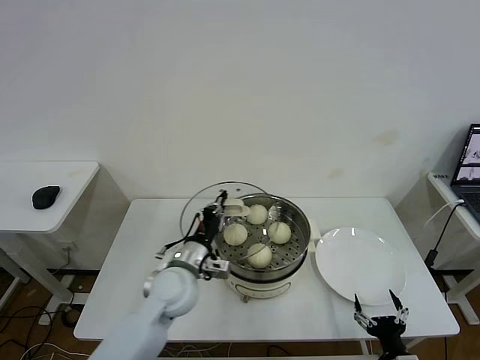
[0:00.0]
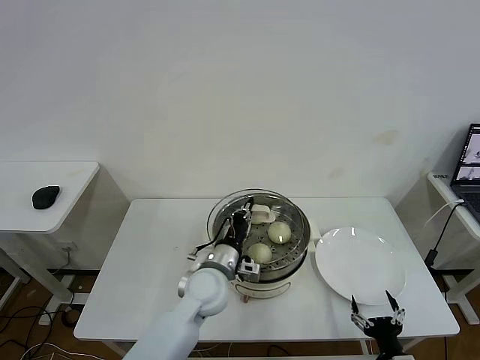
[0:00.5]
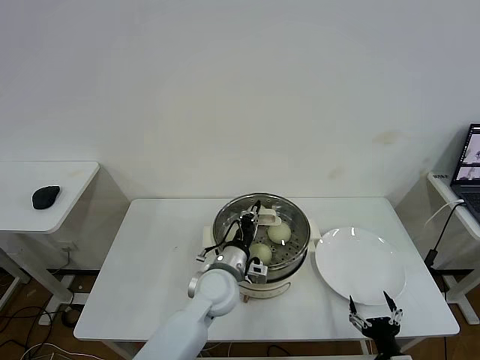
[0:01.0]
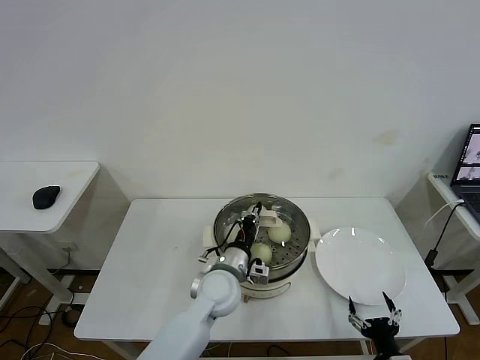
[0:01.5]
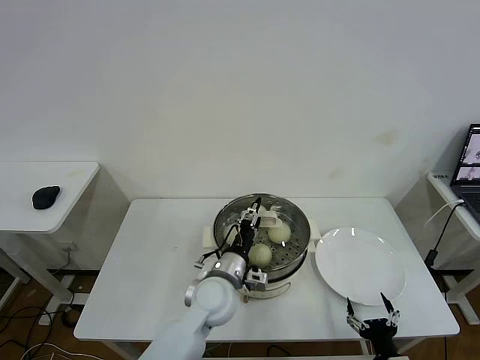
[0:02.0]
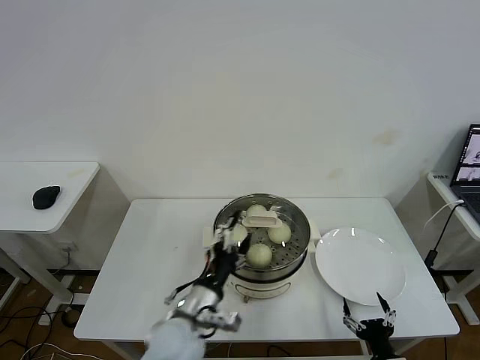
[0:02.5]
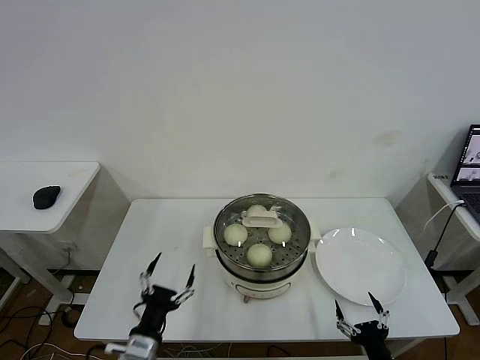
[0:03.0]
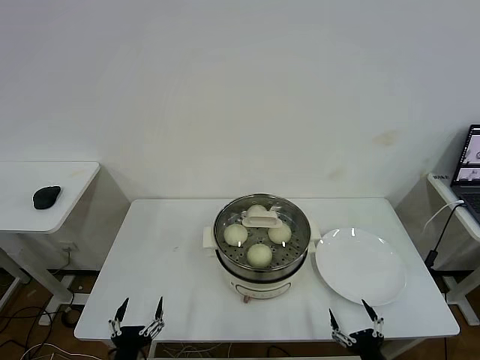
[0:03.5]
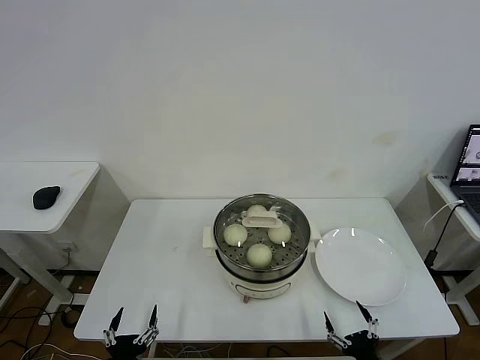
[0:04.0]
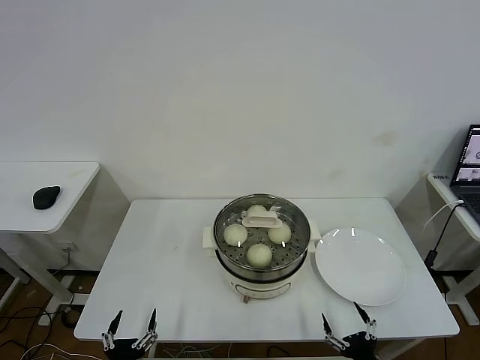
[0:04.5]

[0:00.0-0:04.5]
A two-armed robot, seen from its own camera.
Task of the whole recording: take steamed baozi put them in steamer then cover it.
Step, 0:00.0 to 0:02.0: Place the pot lid on the steamer with left gripper.
0:00.0 to 0:02.0: The left gripper moves to the right, about 10 cm, and opens its fingers.
0:02.0 to 0:04.5: The left gripper heads backward, to the left and downward, covering some 35 cm, and opens.

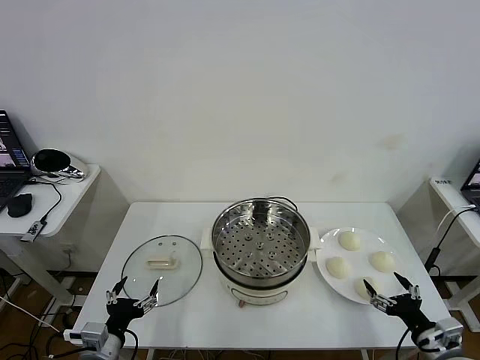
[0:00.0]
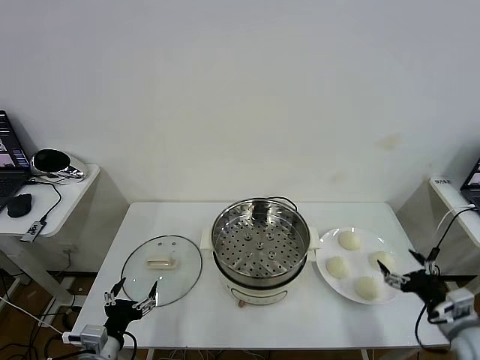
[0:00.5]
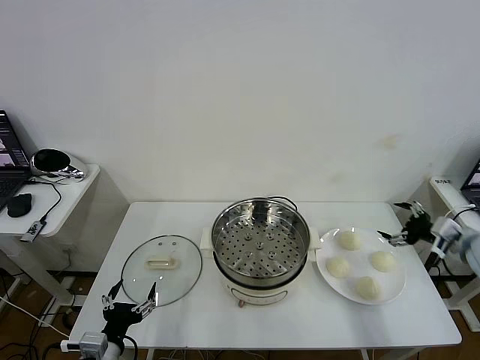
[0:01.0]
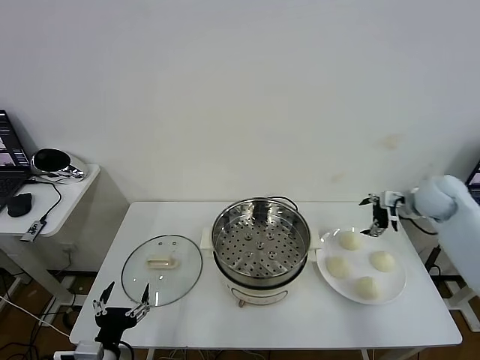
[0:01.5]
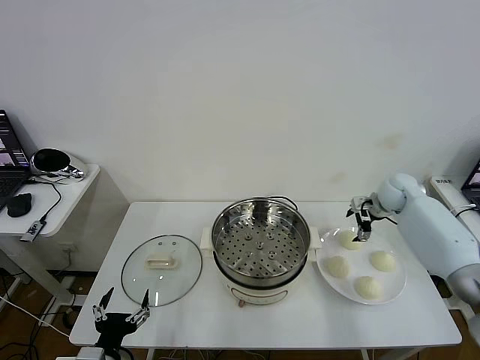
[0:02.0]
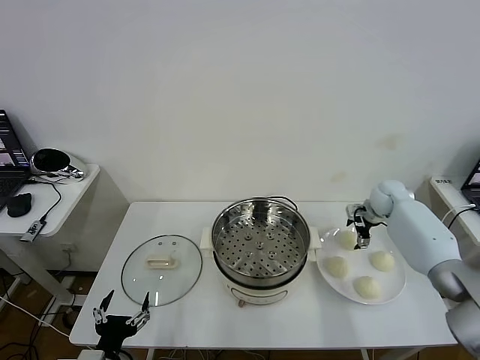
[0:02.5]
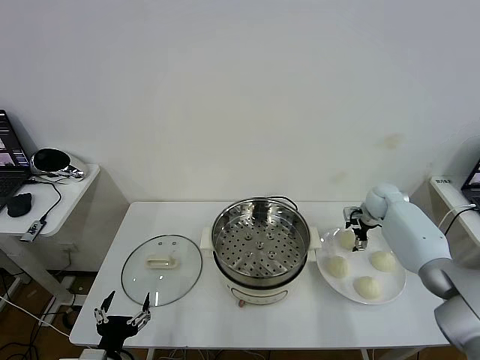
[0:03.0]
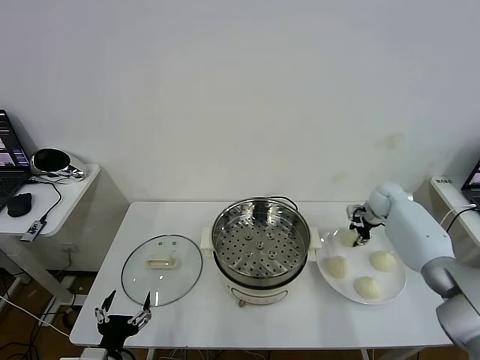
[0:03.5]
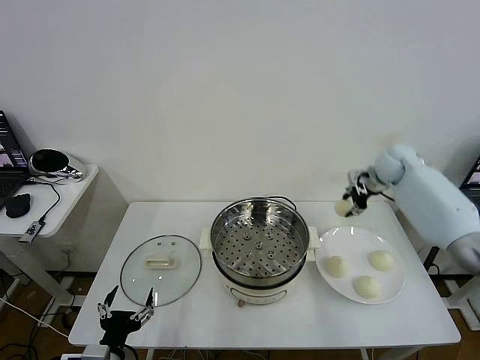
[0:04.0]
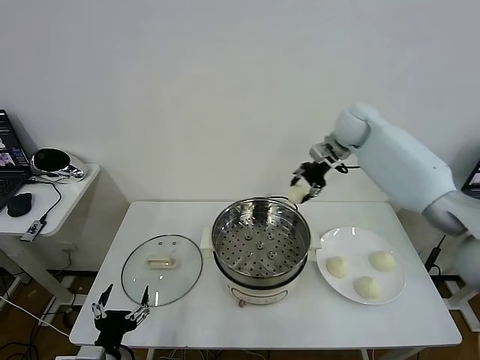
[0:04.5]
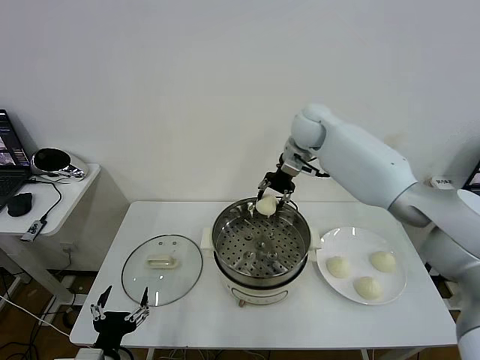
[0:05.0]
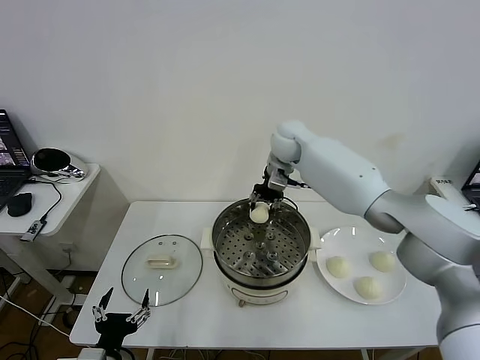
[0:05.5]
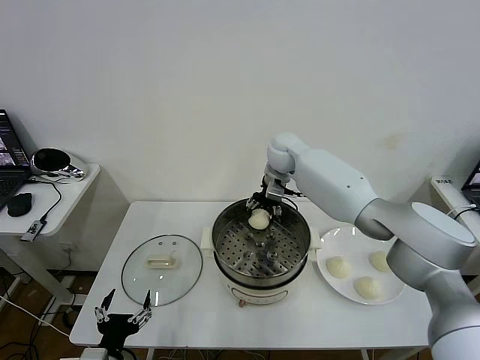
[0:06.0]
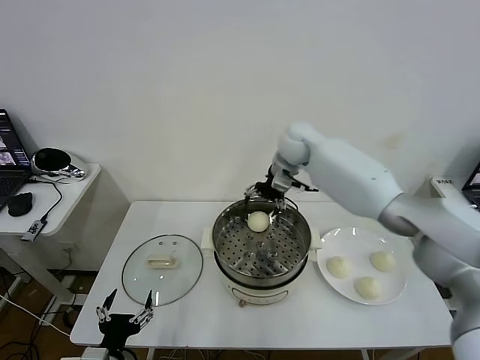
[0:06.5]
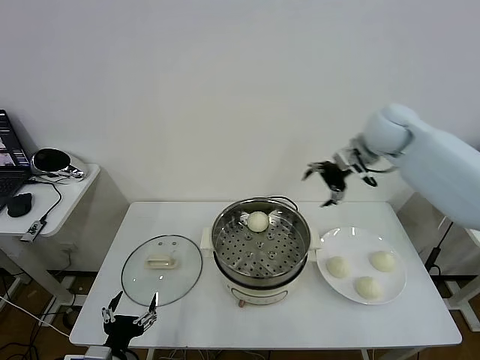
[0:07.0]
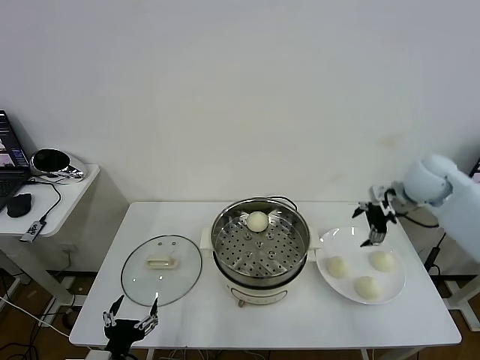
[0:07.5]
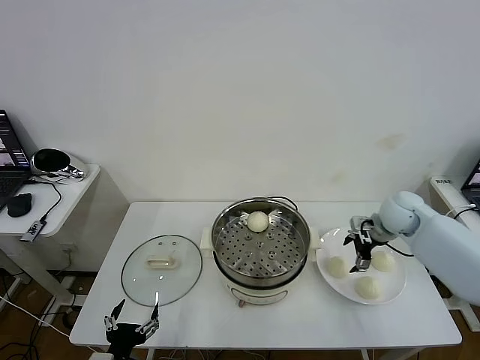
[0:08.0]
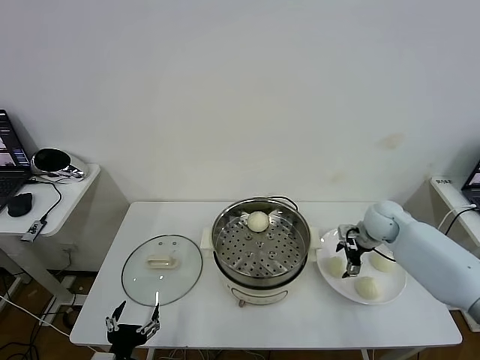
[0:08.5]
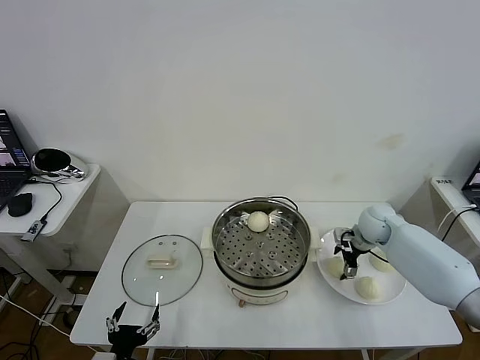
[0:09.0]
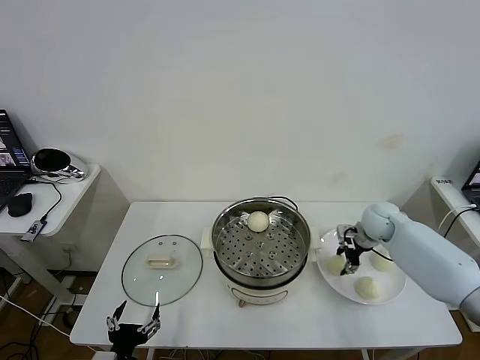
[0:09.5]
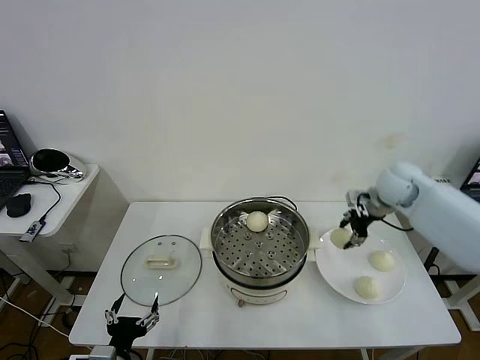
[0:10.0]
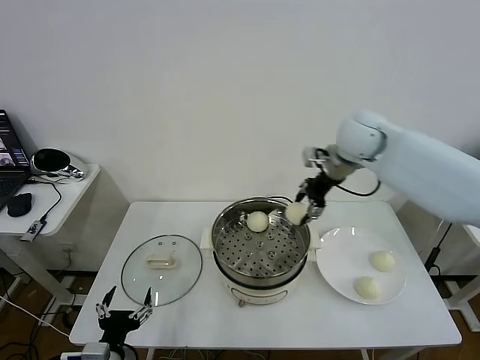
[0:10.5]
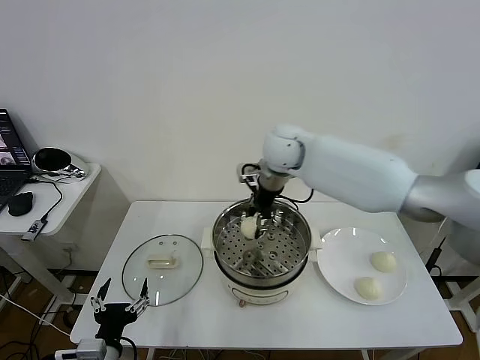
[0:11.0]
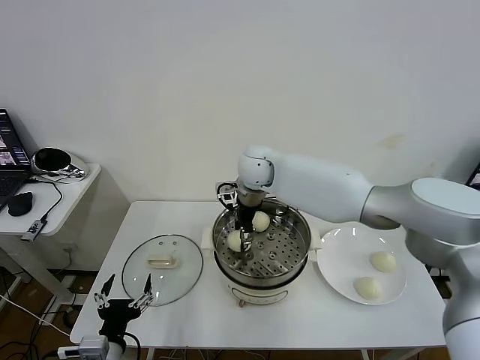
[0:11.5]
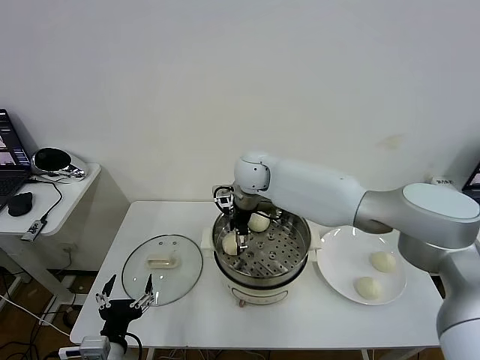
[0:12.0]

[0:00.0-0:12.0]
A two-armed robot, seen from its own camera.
Task of the whole recording: take steamed baozi put them in steamer then cover it.
Step, 0:00.0 to 0:03.0: Grasp the baozi in the plate with right gripper.
Step, 0:03.5 to 0:06.0: Place the baozi on the steamer with right gripper.
Step, 0:06.5 to 0:09.0: Grasp the baozi in the plate with right gripper.
Step, 0:09.5 to 0:12.0: Place the baozi on the steamer with right gripper.
0:02.0 to 0:04.0: The right gripper shifts about 15 cm upward, and closes its fingers.
0:04.0 to 0:06.0: The right gripper goes roughly 25 cm to the left, and opens its fingers.
0:06.0 to 0:08.0: The right gripper goes about 30 cm to the right and backward.
0:08.0 to 0:10.0: The right gripper is displaced upward by roughly 15 cm, and closes.
0:10.0 to 0:12.0: The right gripper is displaced to the left by some 30 cm, and opens up.

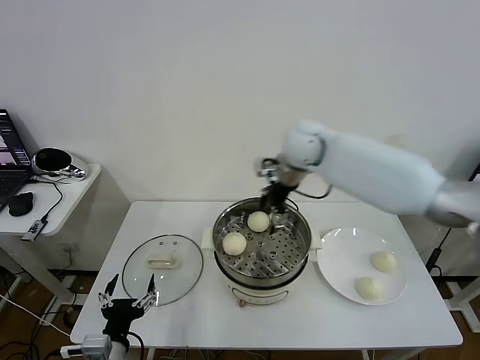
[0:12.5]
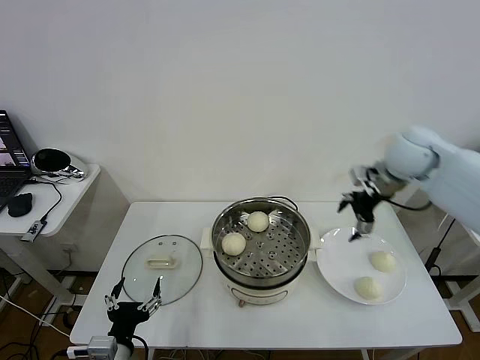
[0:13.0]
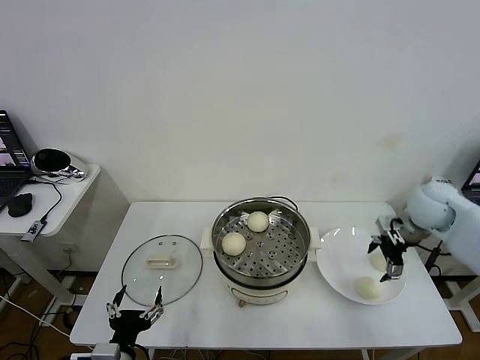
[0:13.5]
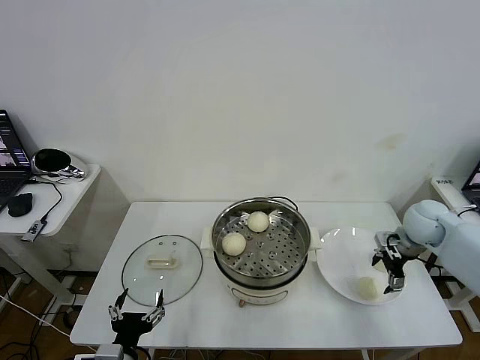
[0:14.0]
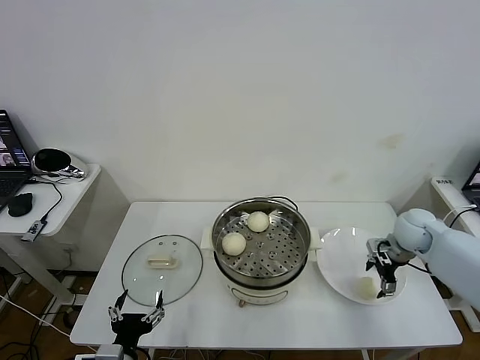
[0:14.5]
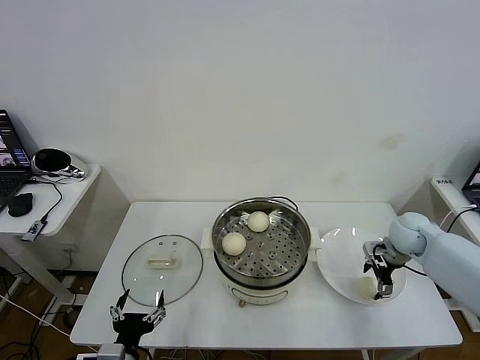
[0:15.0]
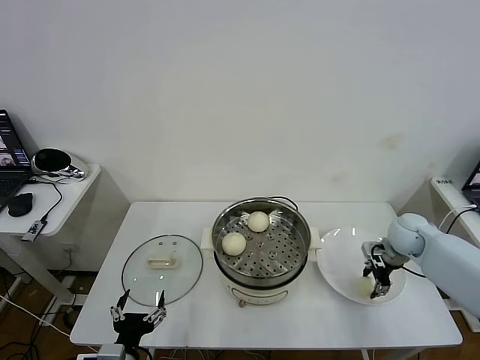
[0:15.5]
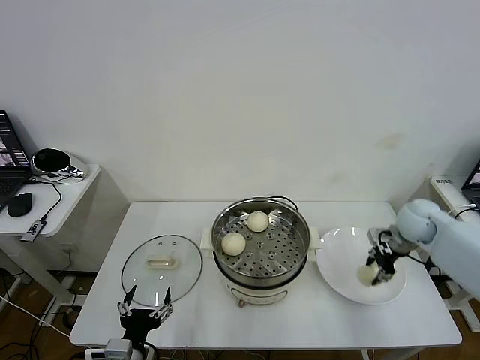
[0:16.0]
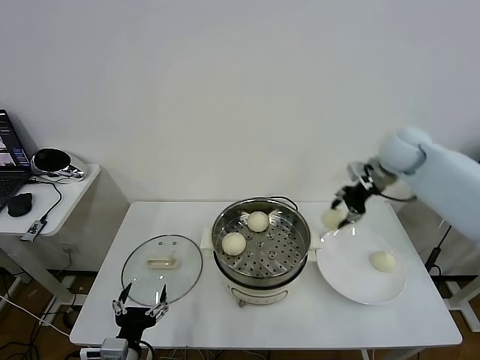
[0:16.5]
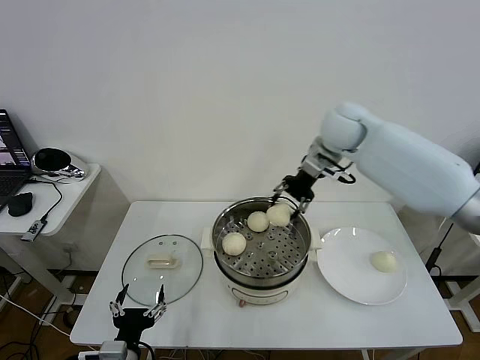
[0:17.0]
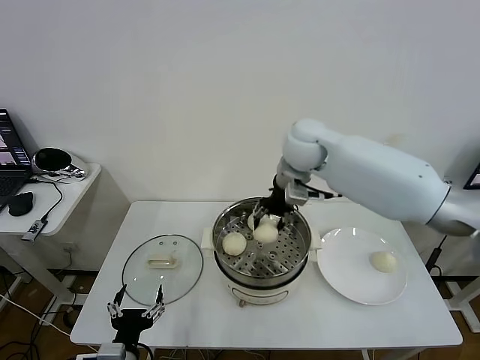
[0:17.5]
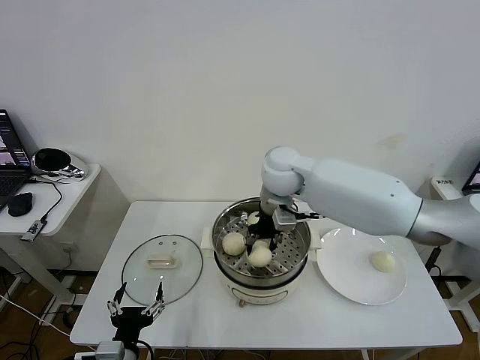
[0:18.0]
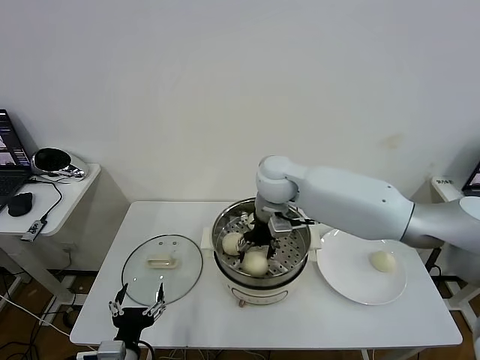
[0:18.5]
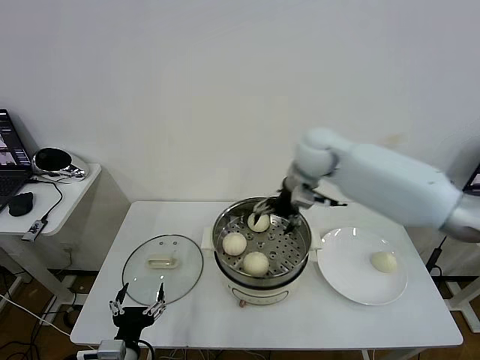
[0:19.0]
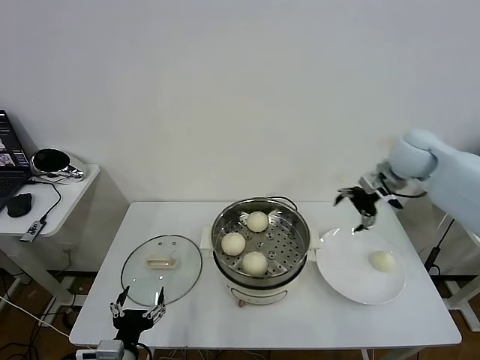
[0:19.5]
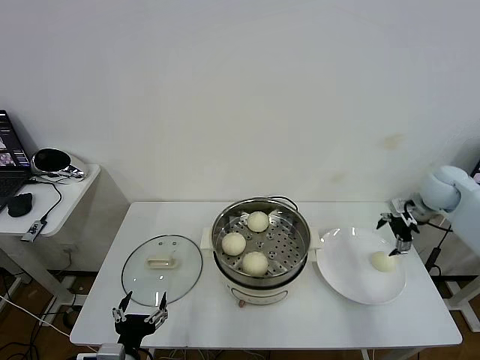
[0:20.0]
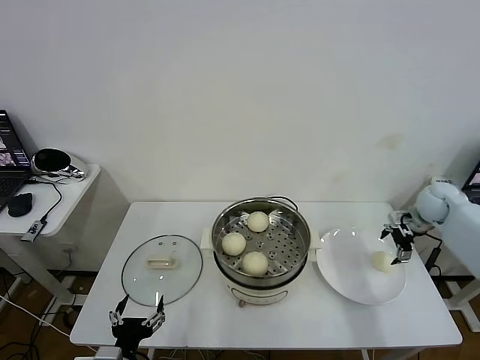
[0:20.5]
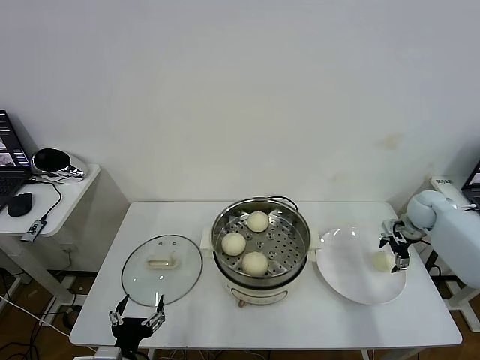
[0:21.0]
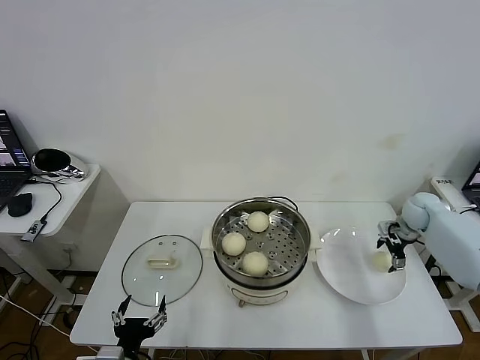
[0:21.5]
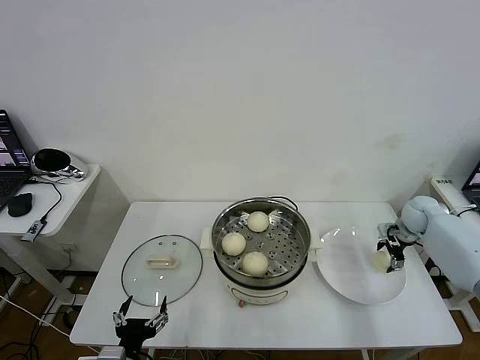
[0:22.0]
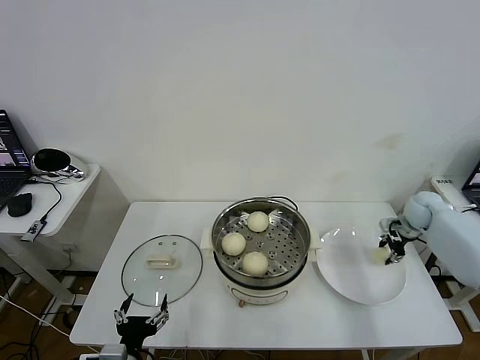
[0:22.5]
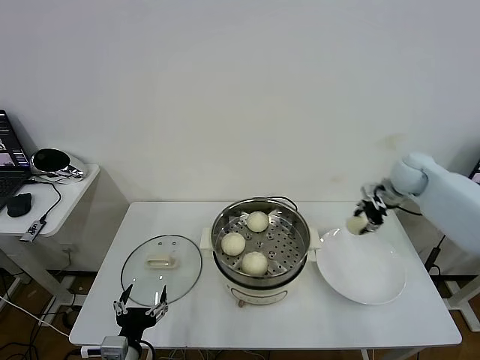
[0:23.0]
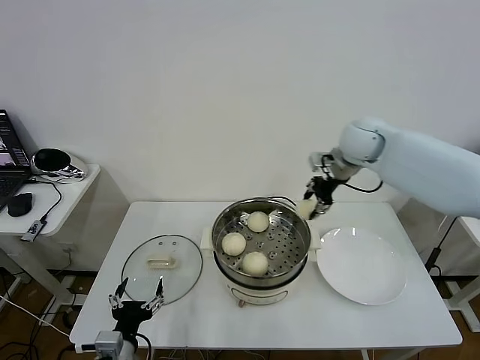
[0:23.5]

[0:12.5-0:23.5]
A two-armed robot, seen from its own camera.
Task of the whole recording: take steamed baozi put them in steamer then cover it.
Step, 0:12.5 to 0:15.5: Grasp the baozi in the plate with right gripper.
Step, 0:16.0 to 0:18.5: Place the baozi on the steamer with right gripper.
Step, 0:19.0 to 0:22.0: Grasp the baozi in the plate with right gripper.
0:12.5 to 0:14.5: The right gripper moves to the right and downward, some 30 cm.
0:14.5 to 0:16.0: The right gripper is displaced upward by some 5 cm, and closes.
0:16.0 to 0:18.0: The right gripper shifts approximately 35 cm to the left.
0:18.0 to 0:20.0: The right gripper moves to the right, approximately 40 cm, and opens up.
0:20.0 to 0:21.5: The right gripper shifts roughly 10 cm downward.
0:21.5 to 0:23.5: The right gripper heads to the left and upward, covering roughly 30 cm, and closes.
